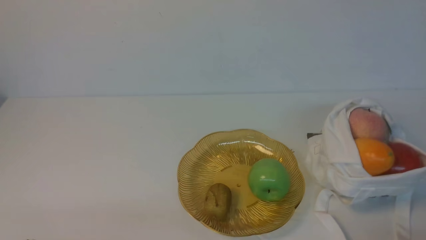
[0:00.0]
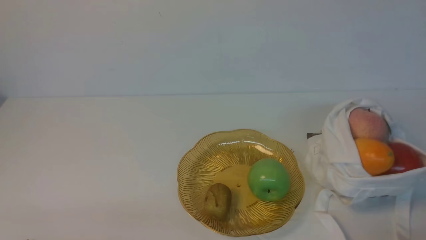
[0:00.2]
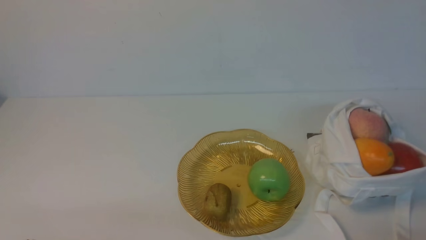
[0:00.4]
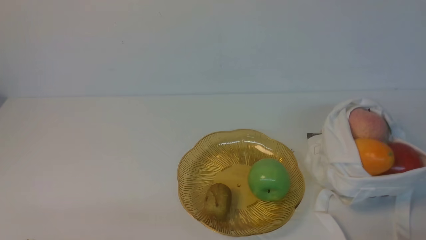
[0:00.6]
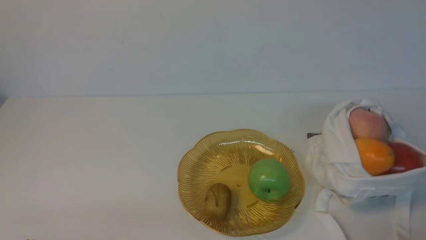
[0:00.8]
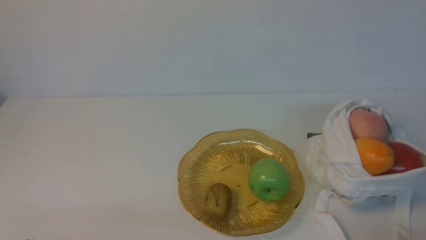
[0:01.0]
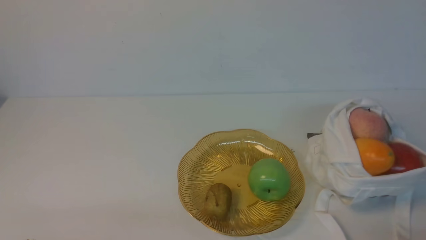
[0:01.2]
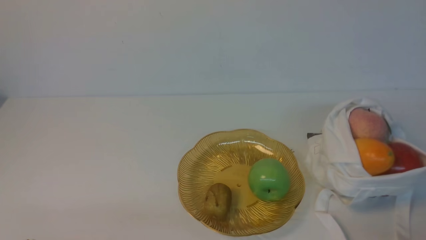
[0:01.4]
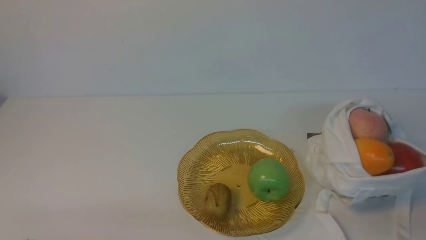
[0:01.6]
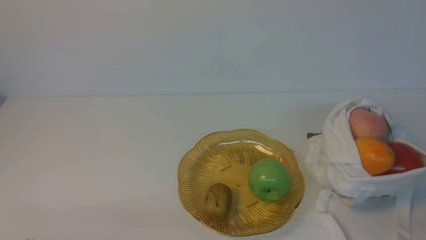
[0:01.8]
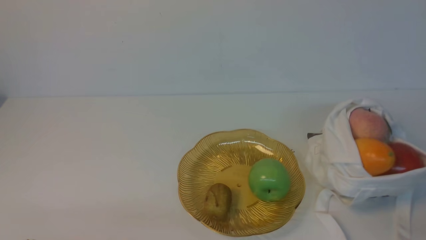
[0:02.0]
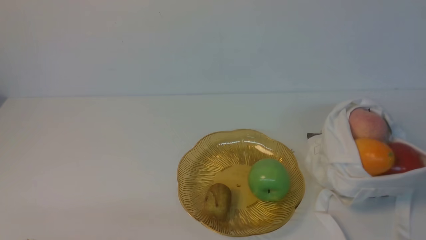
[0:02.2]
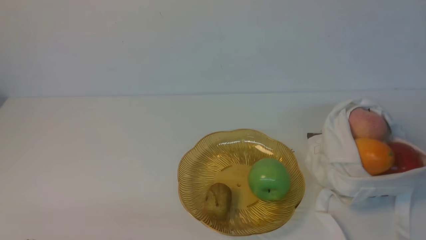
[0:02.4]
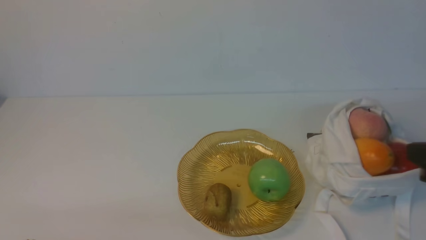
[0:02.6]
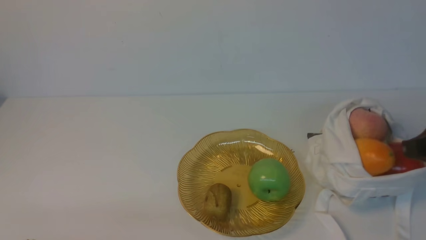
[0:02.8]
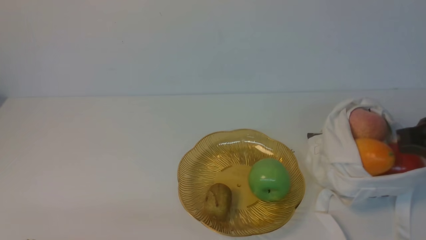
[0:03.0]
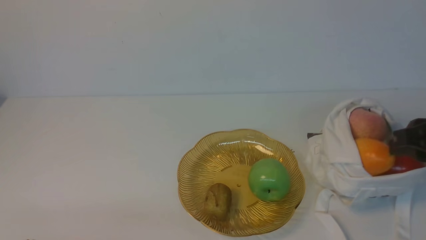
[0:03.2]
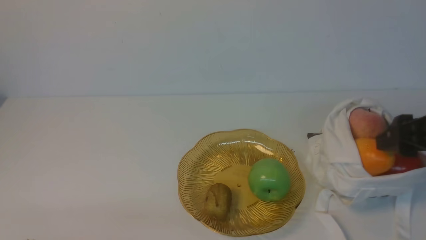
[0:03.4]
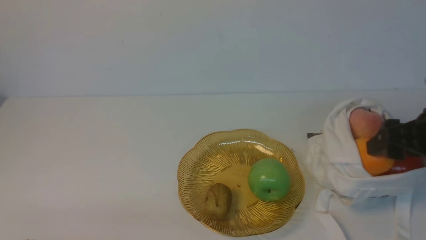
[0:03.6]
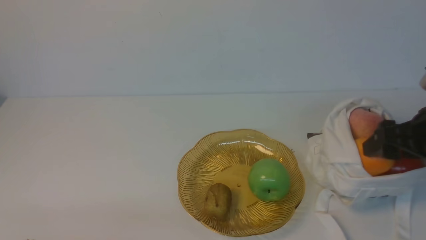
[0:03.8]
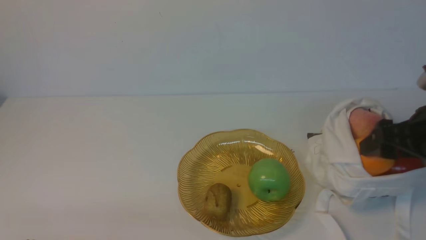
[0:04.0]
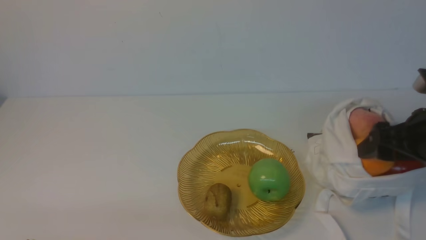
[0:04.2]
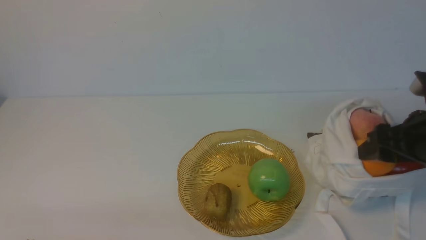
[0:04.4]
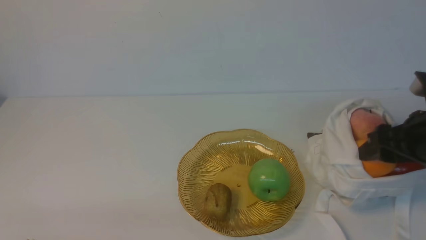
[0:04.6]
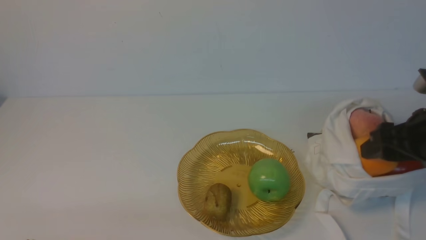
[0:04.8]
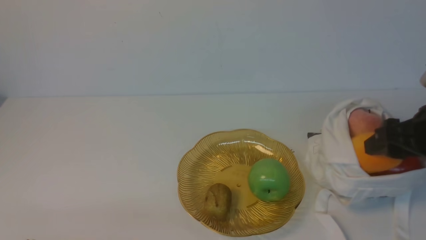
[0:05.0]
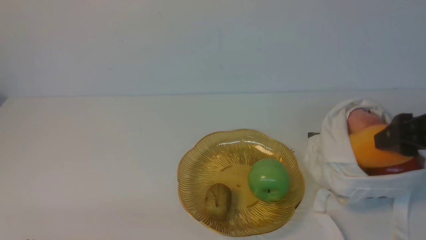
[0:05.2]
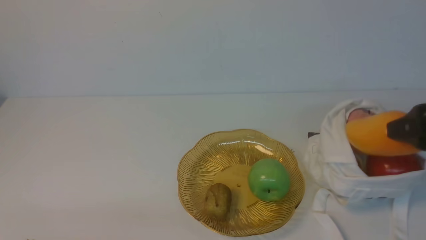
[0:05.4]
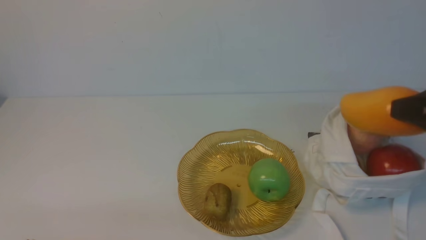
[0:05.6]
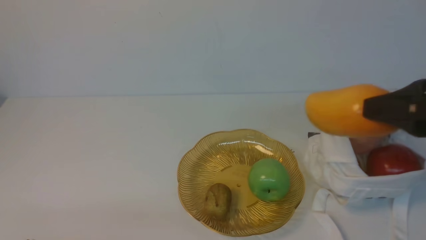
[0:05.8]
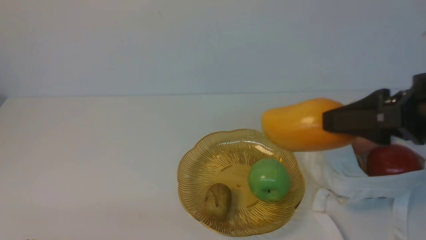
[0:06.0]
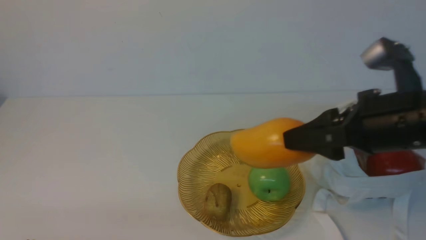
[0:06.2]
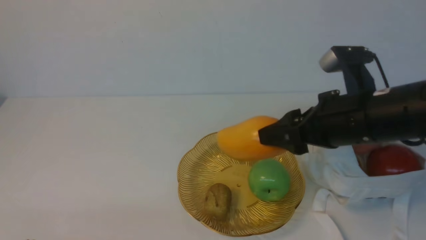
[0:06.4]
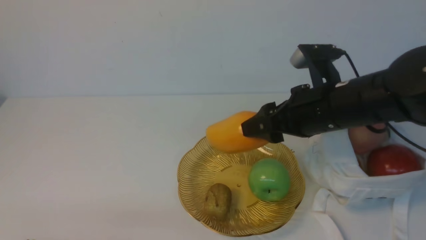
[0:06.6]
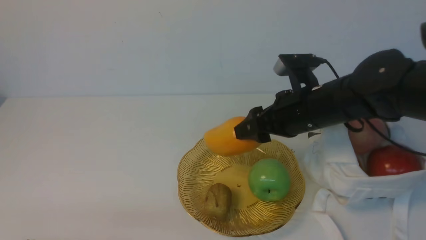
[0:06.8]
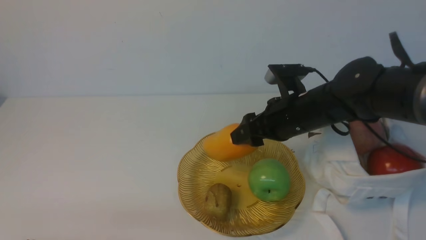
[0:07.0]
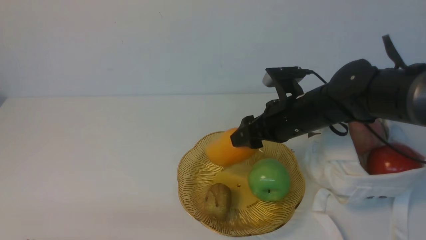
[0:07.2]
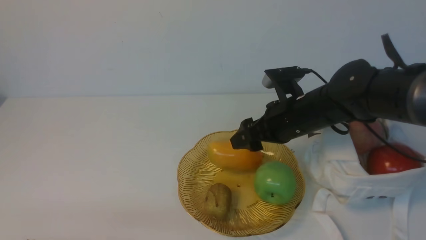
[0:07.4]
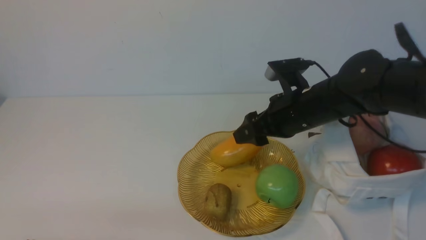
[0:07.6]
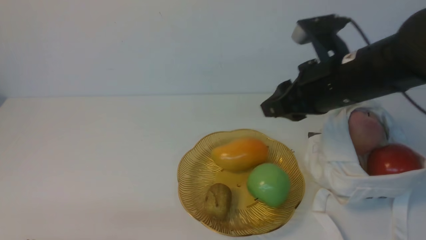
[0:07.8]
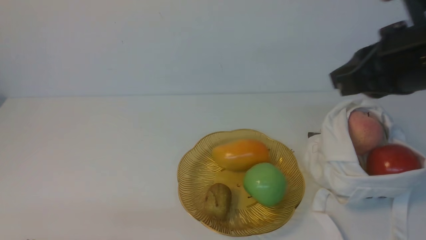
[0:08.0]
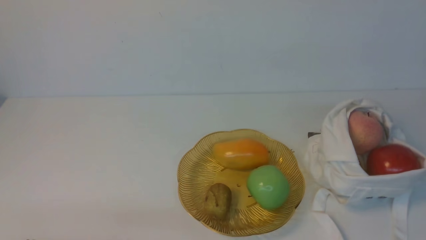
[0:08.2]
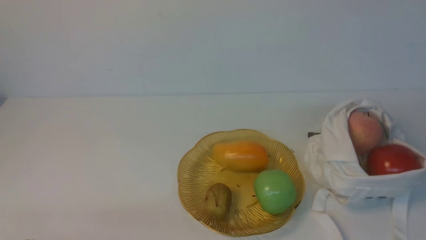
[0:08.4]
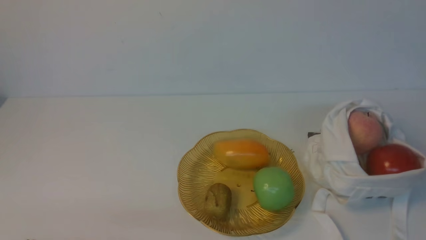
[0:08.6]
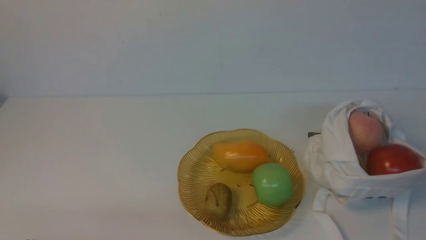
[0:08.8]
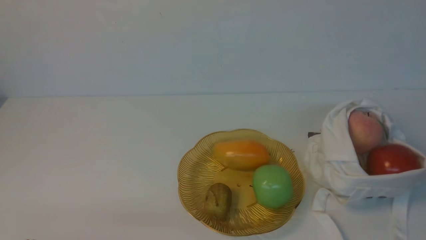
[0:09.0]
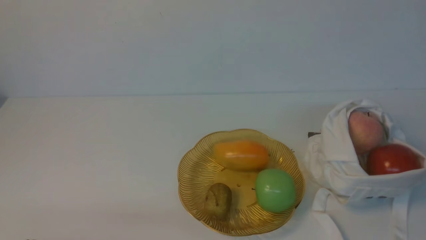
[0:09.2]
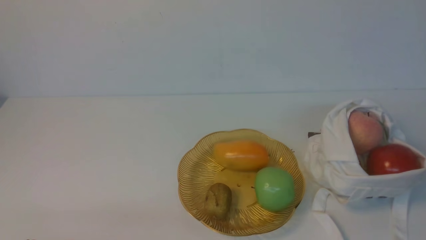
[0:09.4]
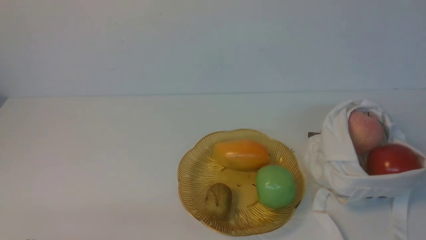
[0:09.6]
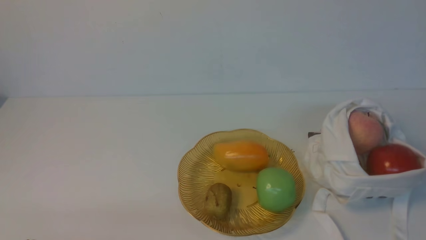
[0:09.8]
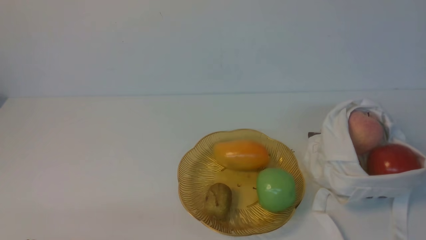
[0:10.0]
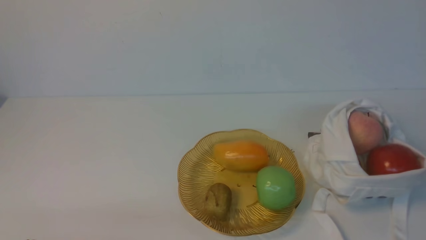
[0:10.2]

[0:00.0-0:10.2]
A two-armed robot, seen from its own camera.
Step, 0:05.0 to 0:07.4: use the right arm to put the lemon into the empty plate on the left.
0:01.4 to 0:03.0: The right gripper goes approximately 20 cm forward and upward.
0:03.0 to 0:04.4: The right gripper shifts by roughly 5 cm, and opens its fingers.
0:04.4 to 0:05.8: The right gripper is displaced upward and backward by some 10 cm.
0:05.8 to 0:07.2: The right gripper moves forward, downward and to the left, approximately 25 cm.
0:07.2 to 0:08.8: The right gripper shifts approximately 40 cm backward and to the right, and closes up.

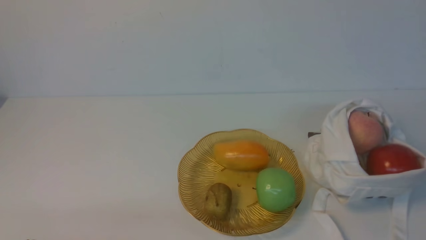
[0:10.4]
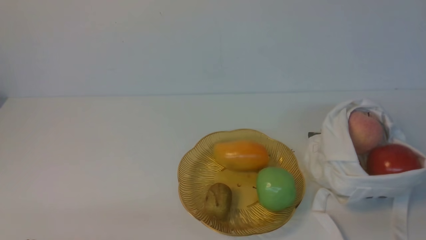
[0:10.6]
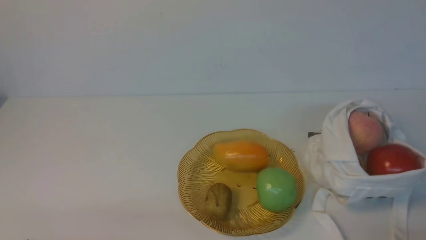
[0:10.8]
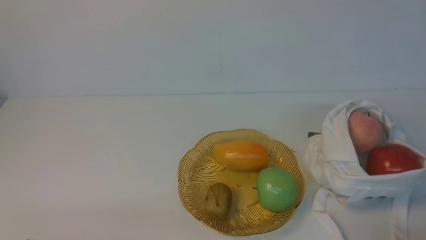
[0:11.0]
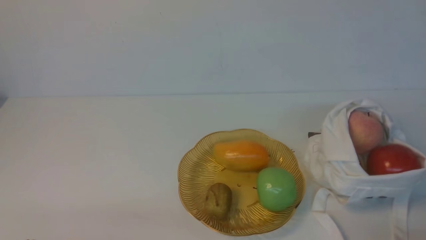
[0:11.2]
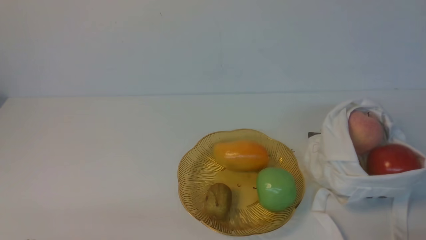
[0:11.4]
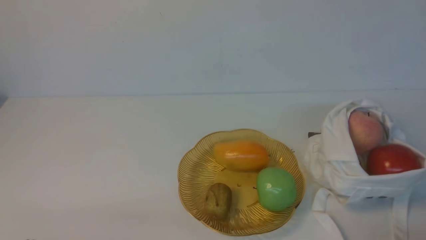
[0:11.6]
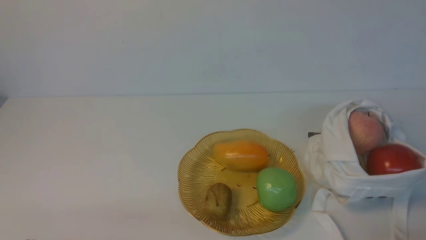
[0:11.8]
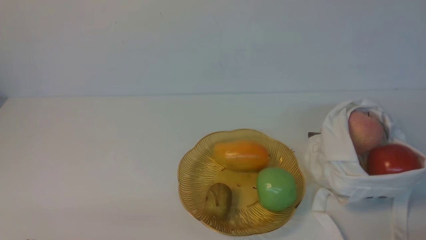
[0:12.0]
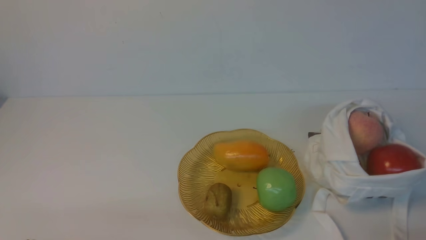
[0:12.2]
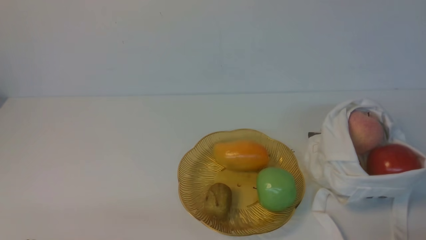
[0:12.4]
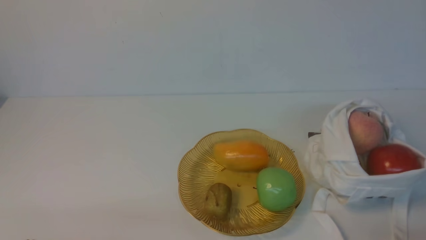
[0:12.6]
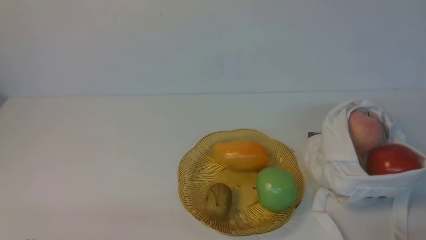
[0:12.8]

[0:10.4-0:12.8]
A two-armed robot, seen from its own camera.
0:11.6 to 0:12.8: The two grippers keep their place.
